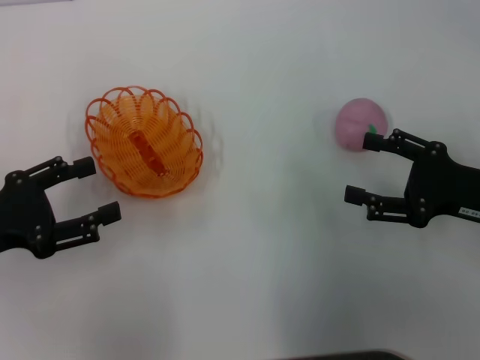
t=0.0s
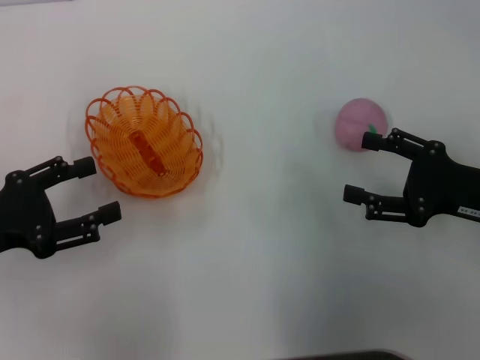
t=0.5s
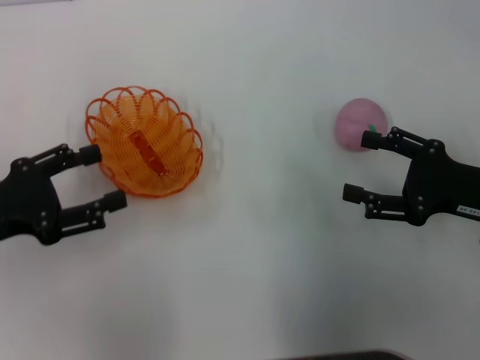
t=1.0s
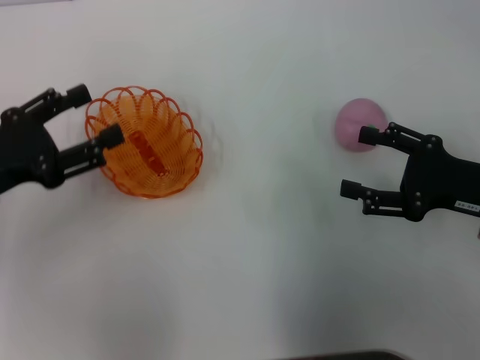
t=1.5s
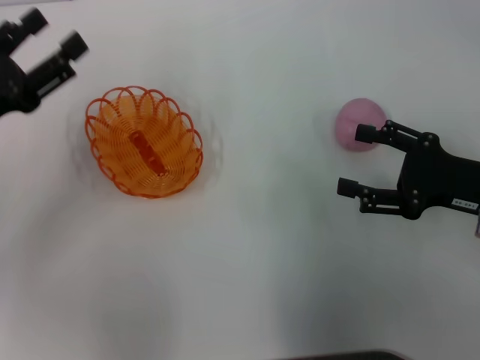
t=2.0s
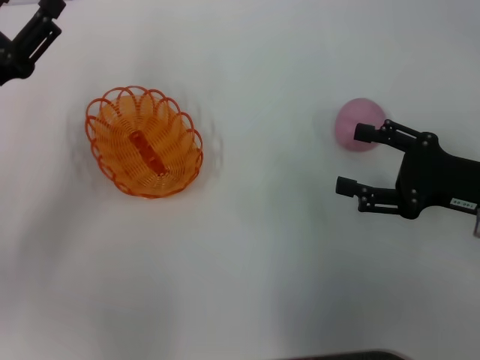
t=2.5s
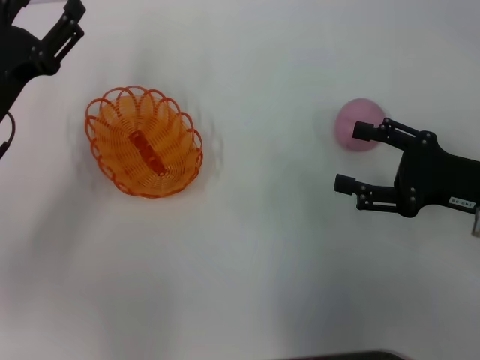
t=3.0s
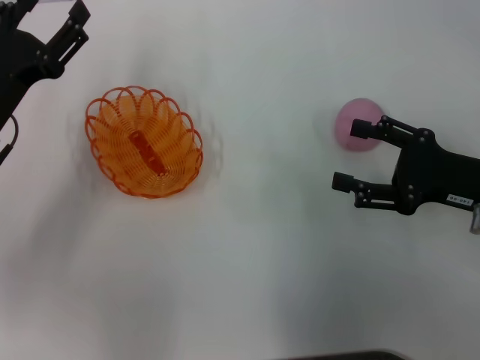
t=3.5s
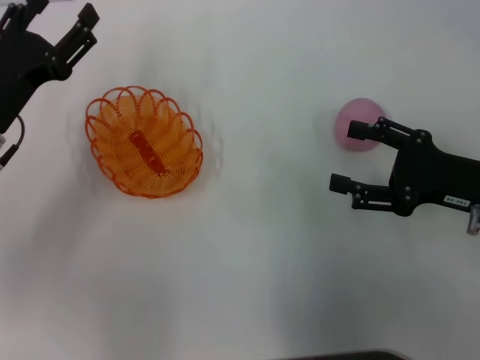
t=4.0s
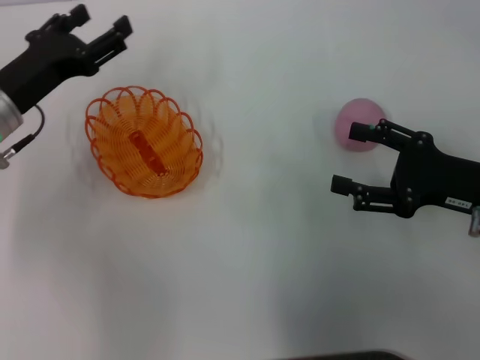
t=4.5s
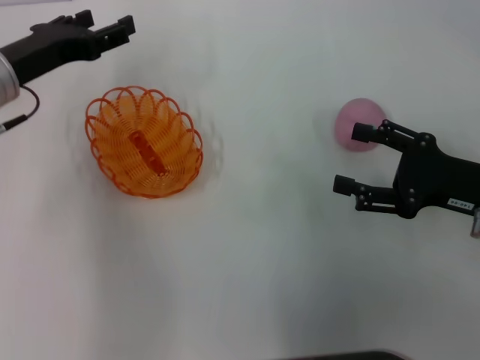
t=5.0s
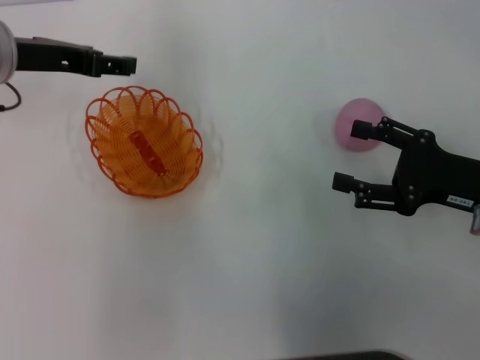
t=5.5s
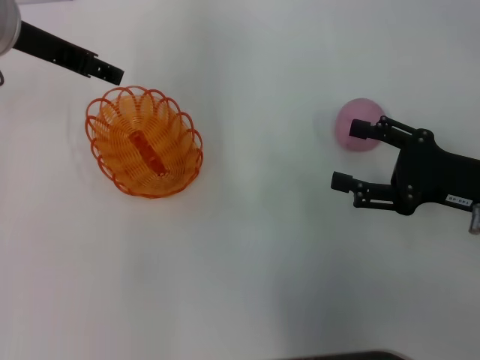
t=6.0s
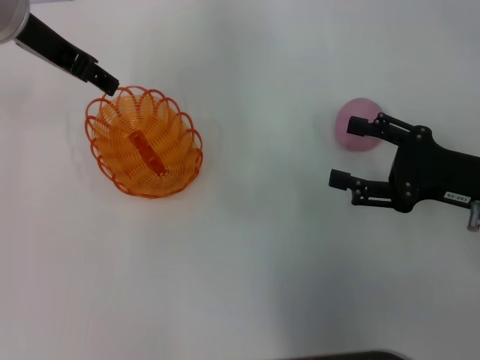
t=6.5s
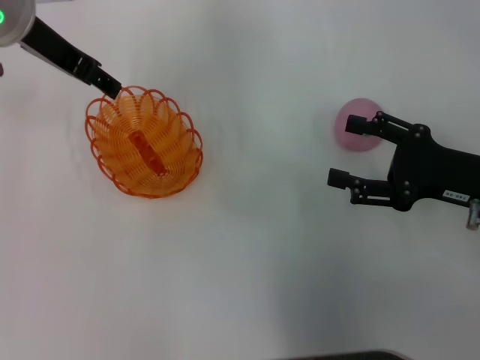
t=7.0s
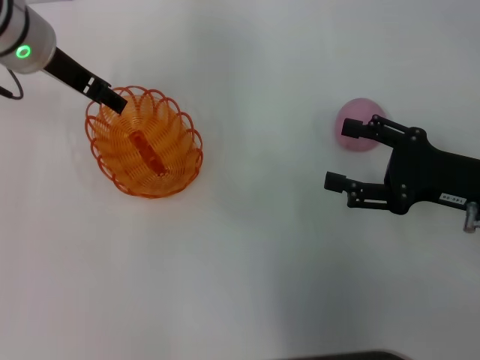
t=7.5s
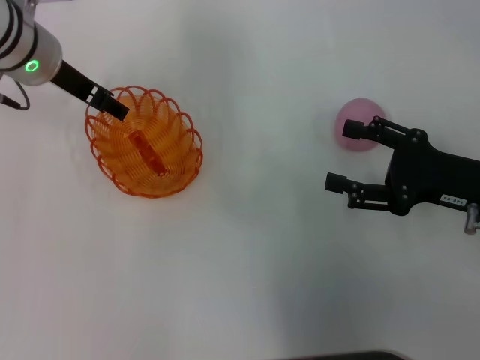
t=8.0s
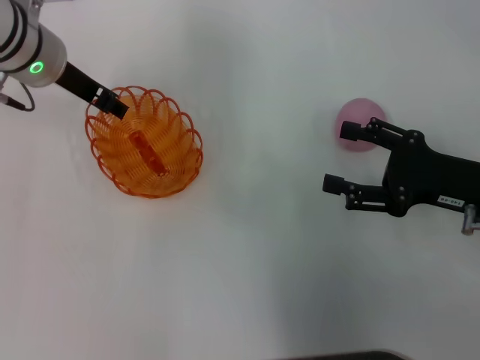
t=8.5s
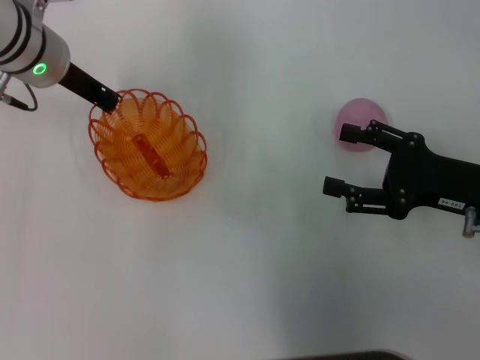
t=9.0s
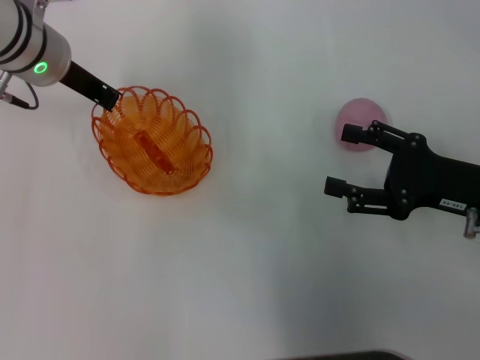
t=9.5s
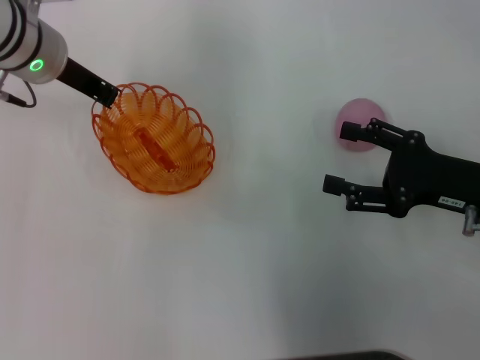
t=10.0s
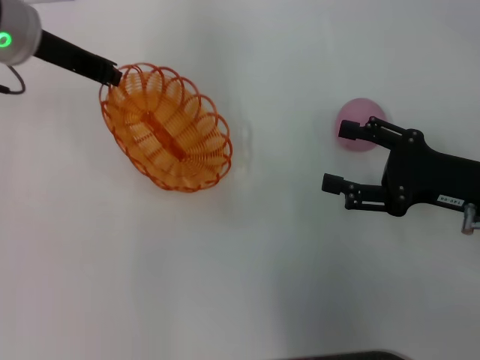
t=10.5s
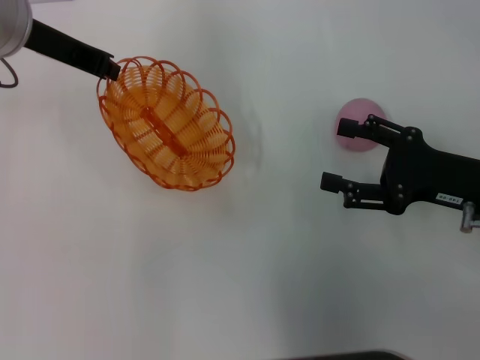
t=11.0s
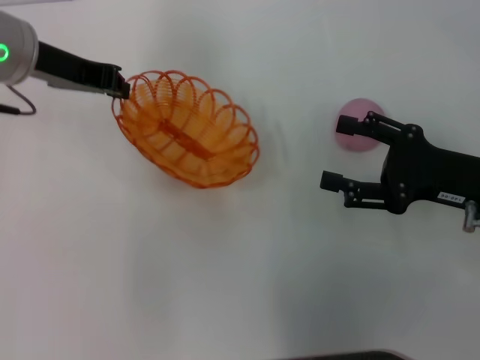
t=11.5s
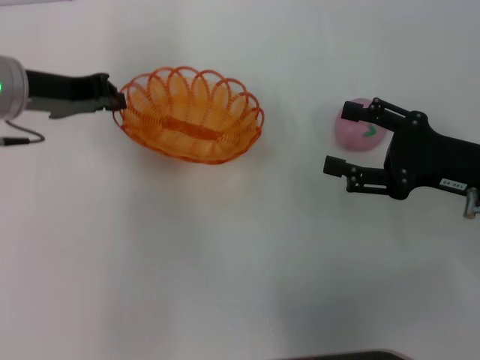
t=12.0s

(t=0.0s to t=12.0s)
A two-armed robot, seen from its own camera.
Step, t=0.0s - t=10.5s: Pick up the basket with the left gripper.
t=0.0s - t=2.0s: The left gripper goes approximately 5 cm forward.
t=2.0s - t=4.0s: The left gripper moves about 5 cm.
t=4.0s - t=6.0s: The left gripper travels upward and forward by roughly 15 cm.
t=6.0s - t=8.0s: The left gripper travels downward by some 5 cm.
t=8.0s - t=10.0s: The left gripper closes.
t=10.0s - t=12.0s: The left gripper moves some 5 cm.

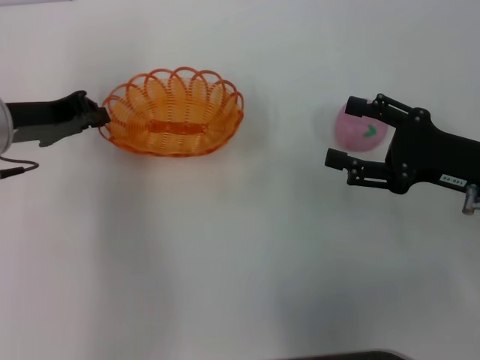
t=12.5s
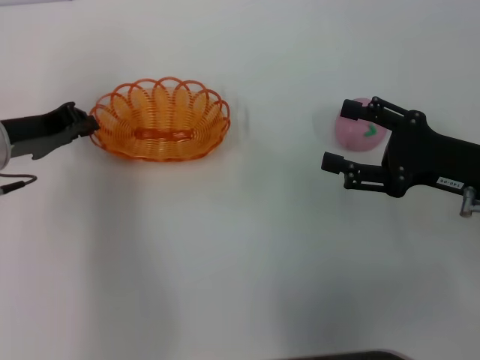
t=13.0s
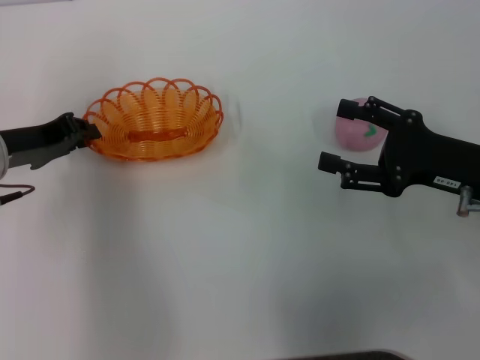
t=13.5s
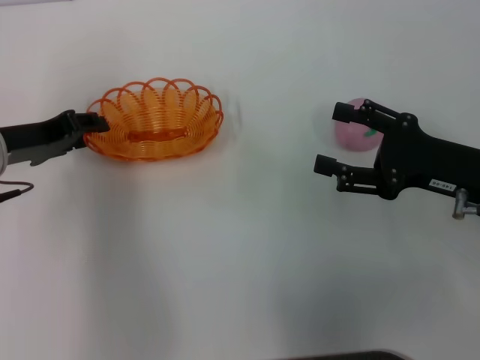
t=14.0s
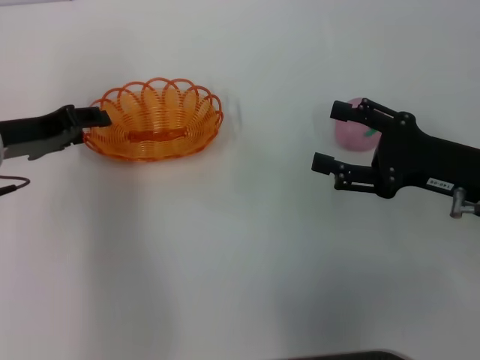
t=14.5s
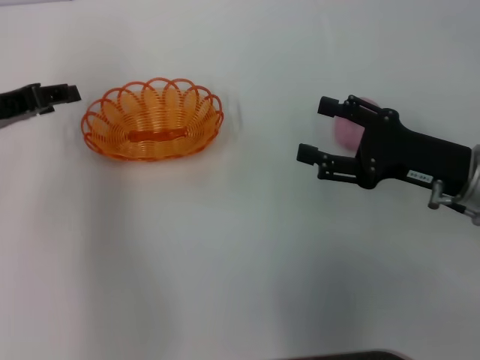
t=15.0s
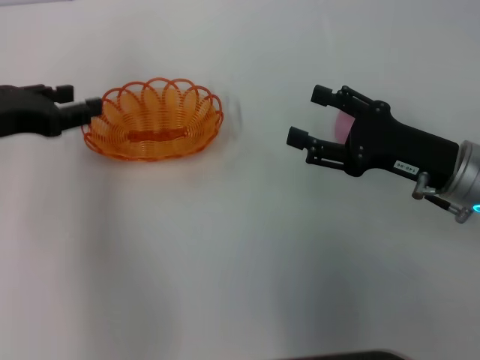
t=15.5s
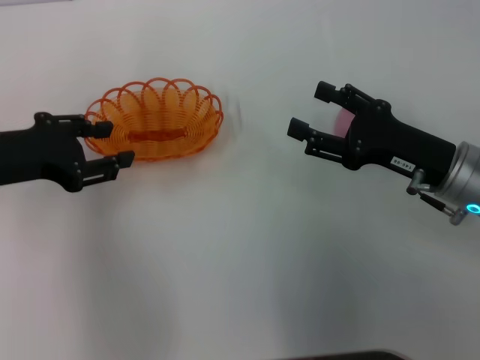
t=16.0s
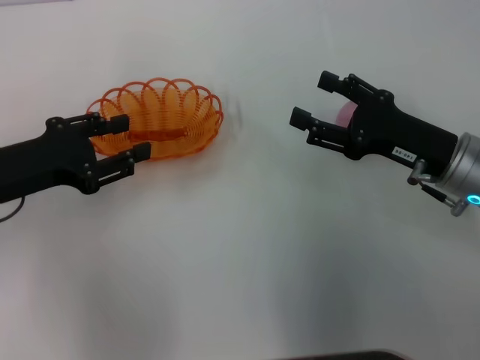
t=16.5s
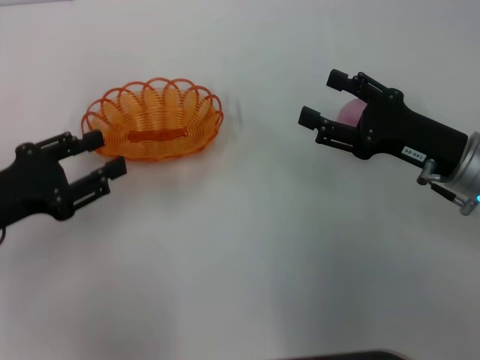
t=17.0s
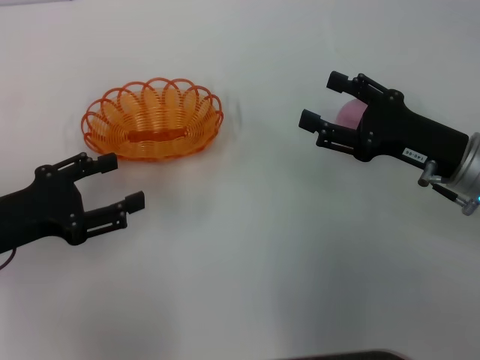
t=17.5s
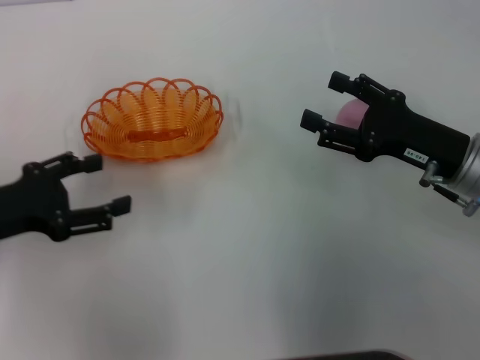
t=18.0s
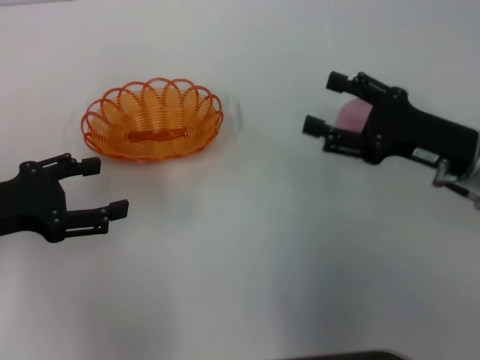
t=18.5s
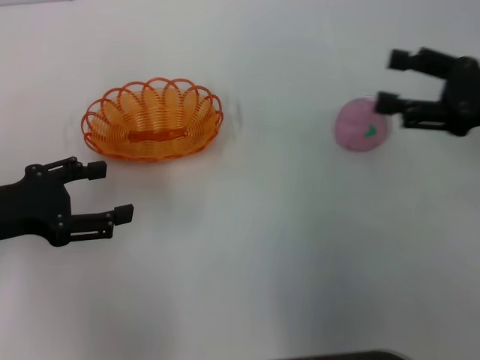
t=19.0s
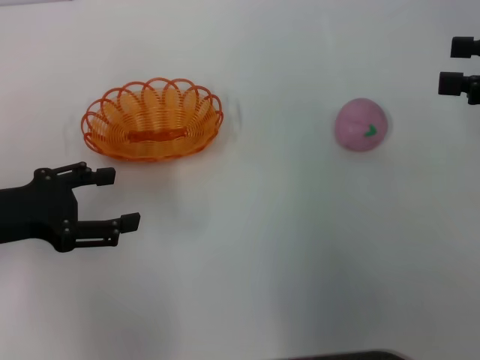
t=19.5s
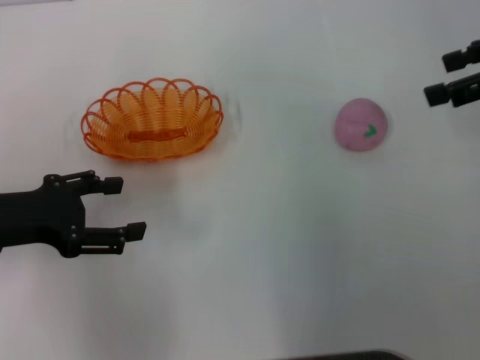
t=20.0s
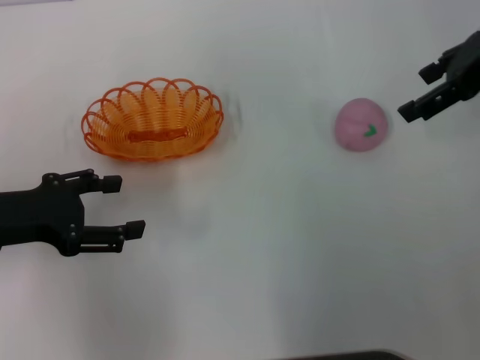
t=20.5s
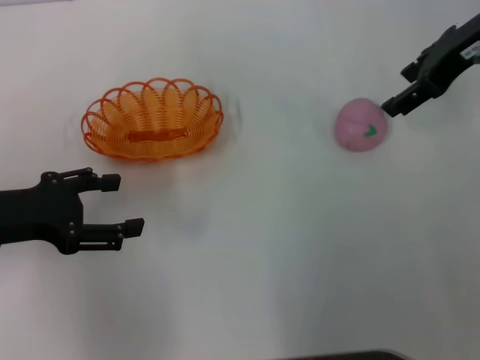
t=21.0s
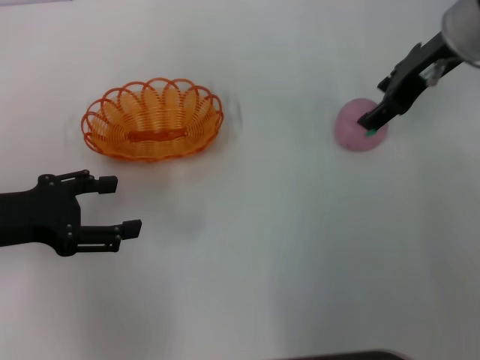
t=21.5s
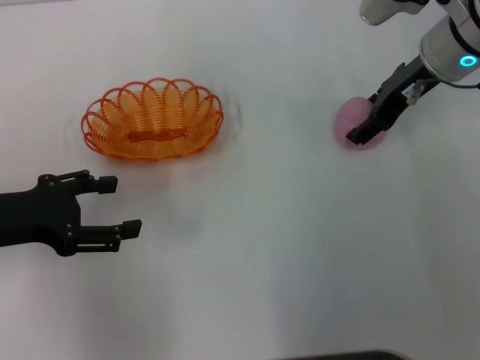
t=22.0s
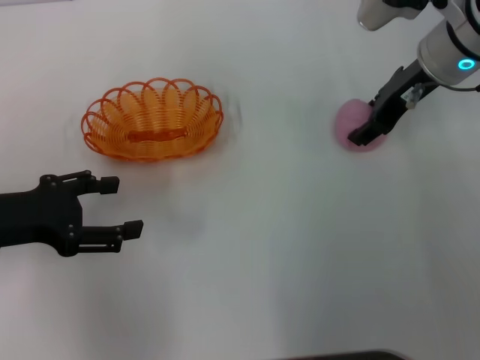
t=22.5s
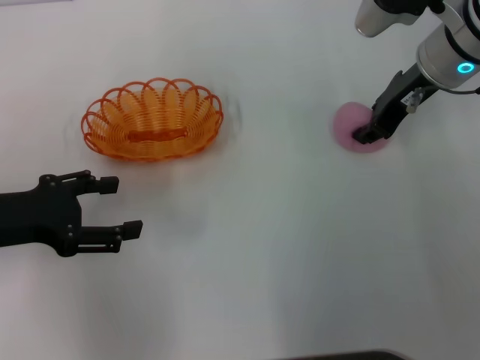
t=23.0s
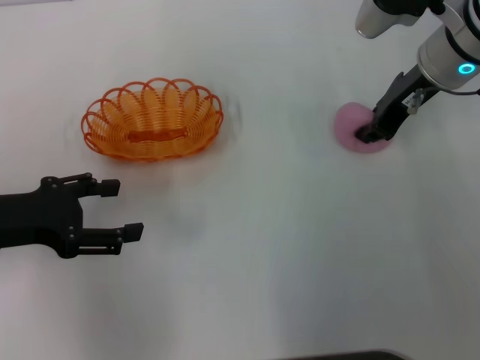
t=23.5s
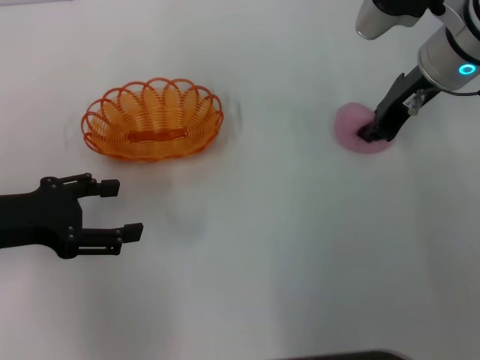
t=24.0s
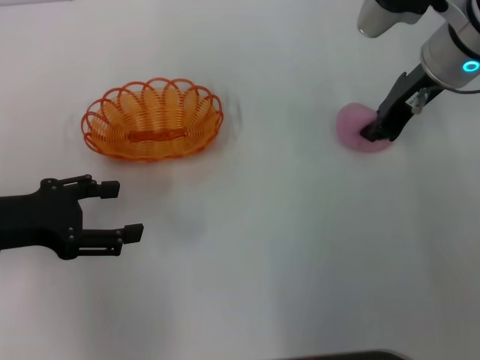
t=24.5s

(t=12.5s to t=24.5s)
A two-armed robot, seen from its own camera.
Step, t=12.5s - t=15.5s: Place the basket in the center of view with the left gripper.
t=12.5s - t=14.5s: The left gripper opens up.
t=16.5s - t=18.5s: The left gripper opens up.
t=18.5s - t=20.5s: The right gripper is displaced upward and forward by about 20 cm.
t=20.5s - t=22.5s: The right gripper shifts approximately 10 cm downward and to the left.
t=22.5s - t=24.5s: The right gripper closes its fingers.

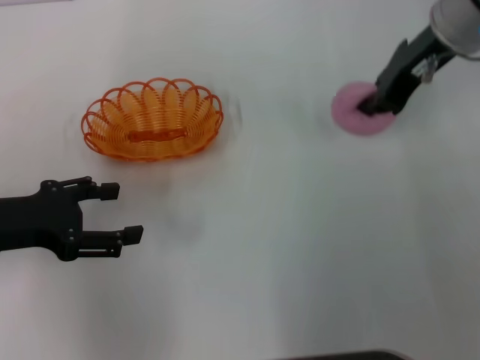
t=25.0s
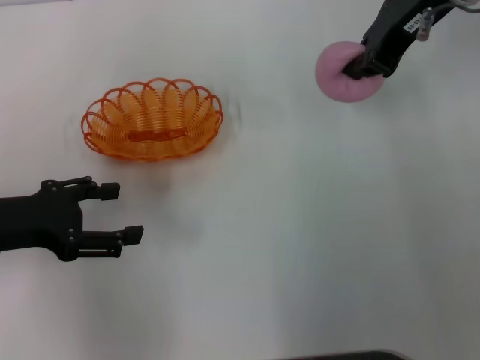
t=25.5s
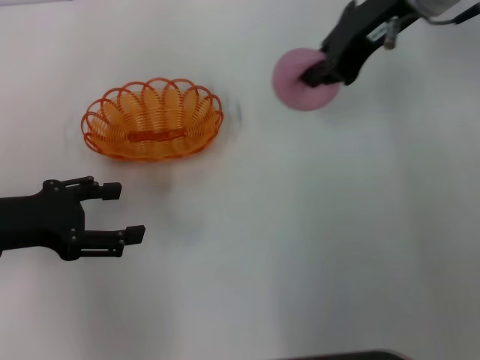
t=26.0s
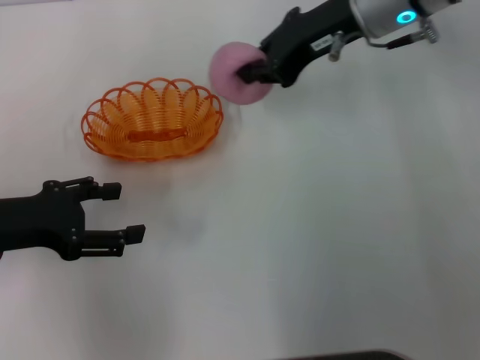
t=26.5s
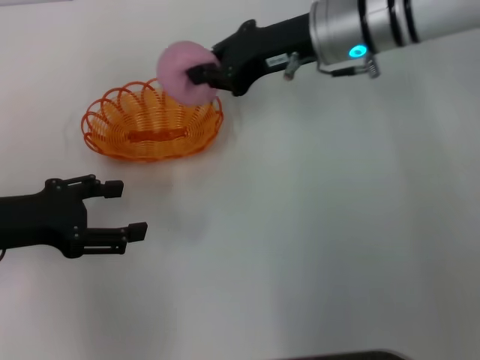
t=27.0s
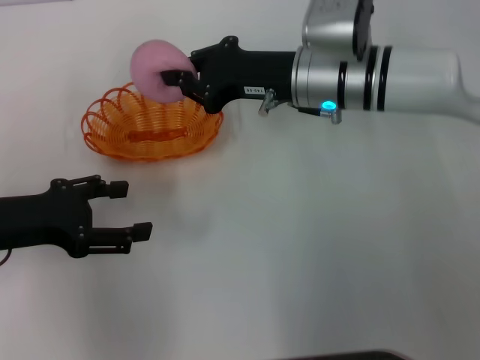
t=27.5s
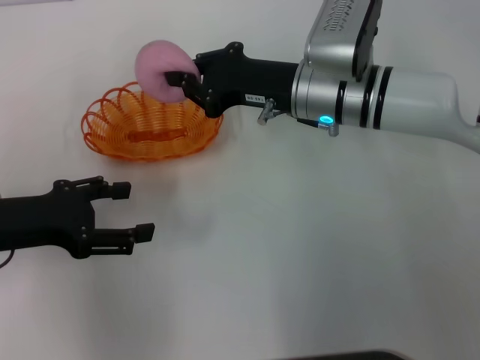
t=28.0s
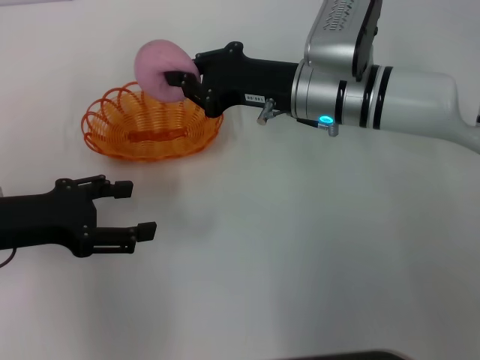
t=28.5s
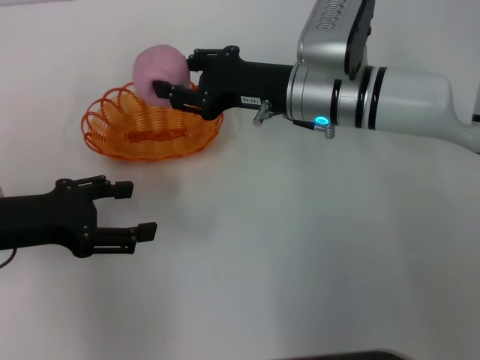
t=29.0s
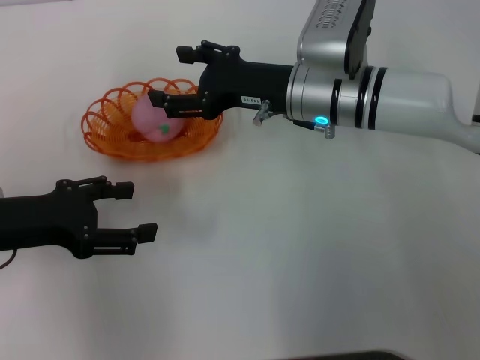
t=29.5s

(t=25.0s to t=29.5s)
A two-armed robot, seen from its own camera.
t=25.0s - t=27.0s: The right gripper travels to the left and downward by some 10 cm.
t=27.0s - t=29.5s: The right gripper shifts approximately 5 cm downward, and opens.
